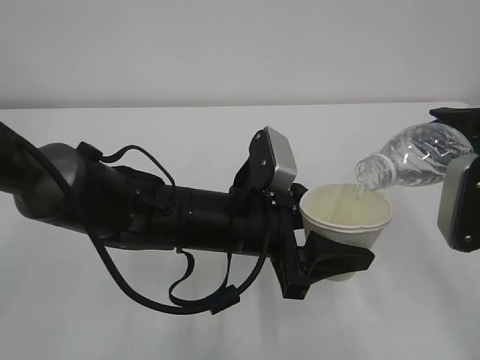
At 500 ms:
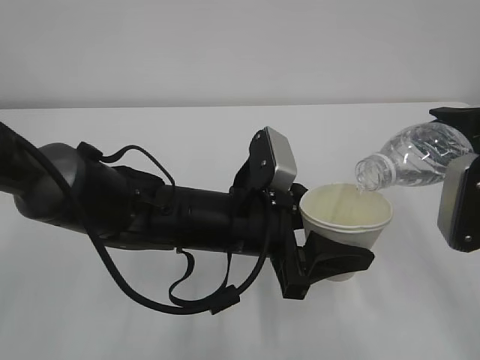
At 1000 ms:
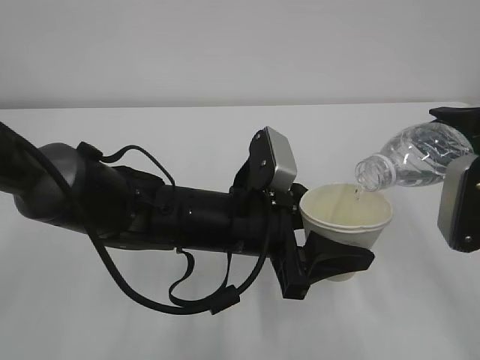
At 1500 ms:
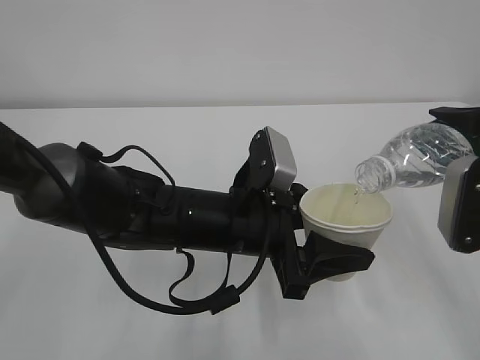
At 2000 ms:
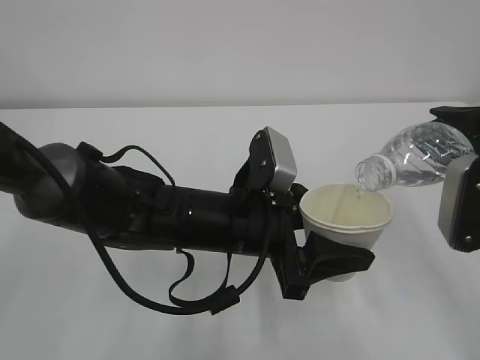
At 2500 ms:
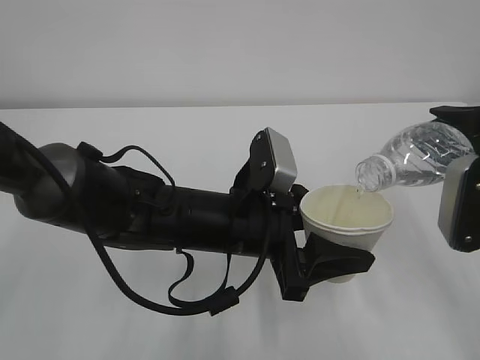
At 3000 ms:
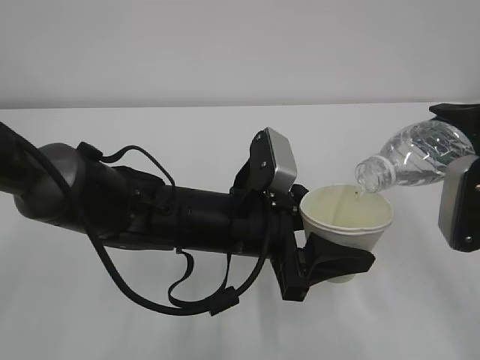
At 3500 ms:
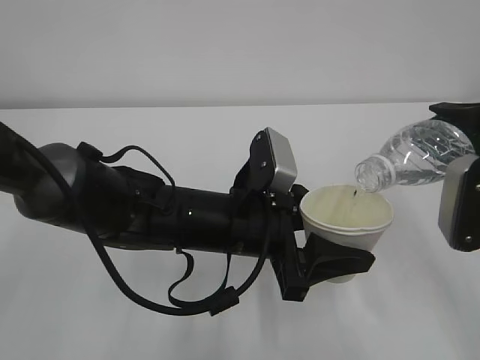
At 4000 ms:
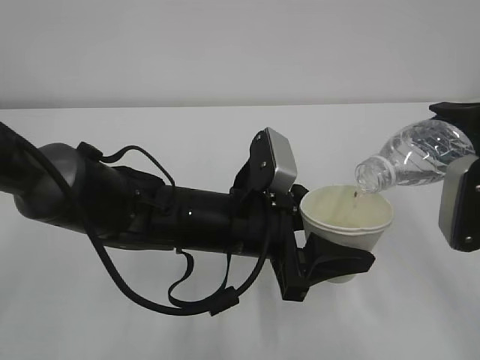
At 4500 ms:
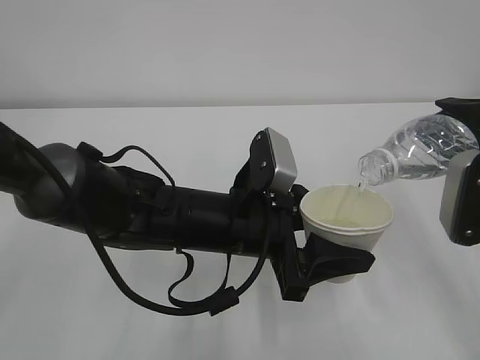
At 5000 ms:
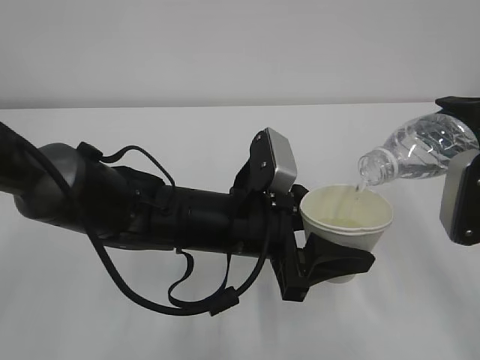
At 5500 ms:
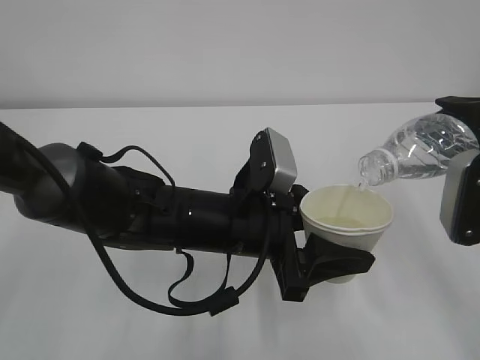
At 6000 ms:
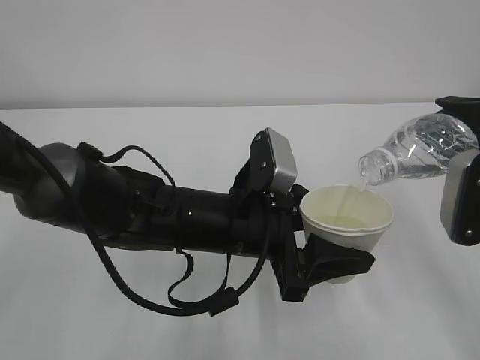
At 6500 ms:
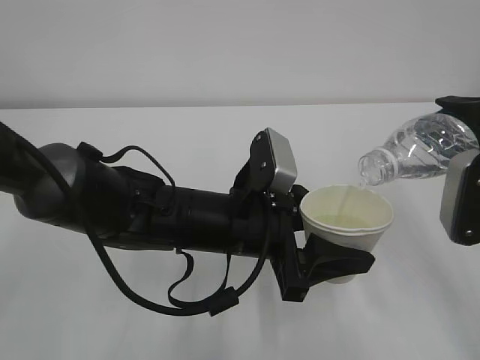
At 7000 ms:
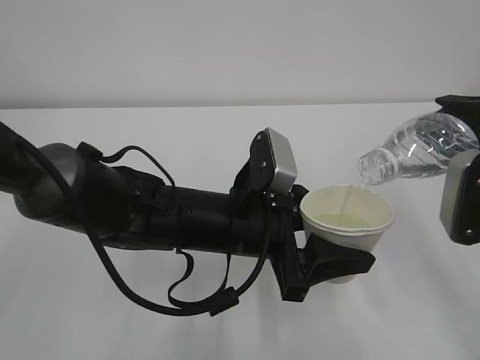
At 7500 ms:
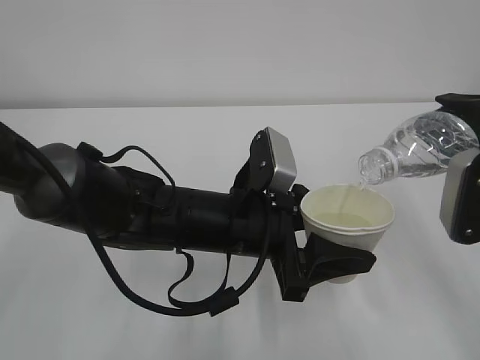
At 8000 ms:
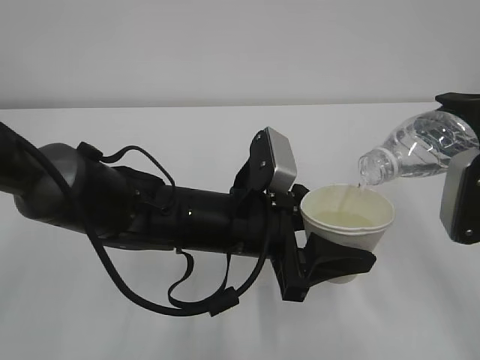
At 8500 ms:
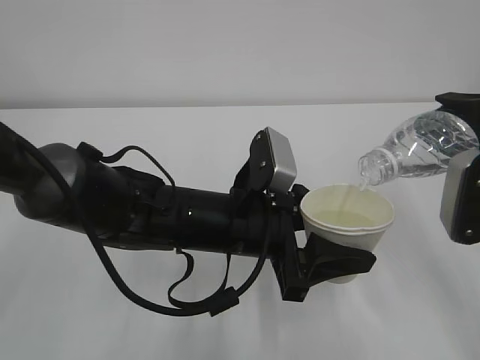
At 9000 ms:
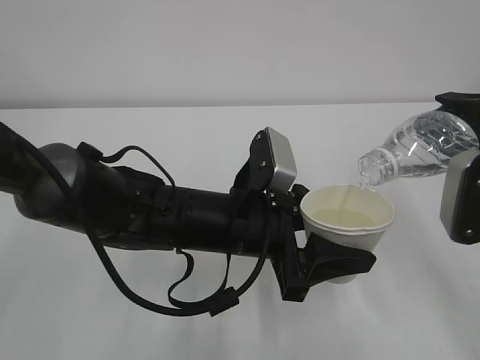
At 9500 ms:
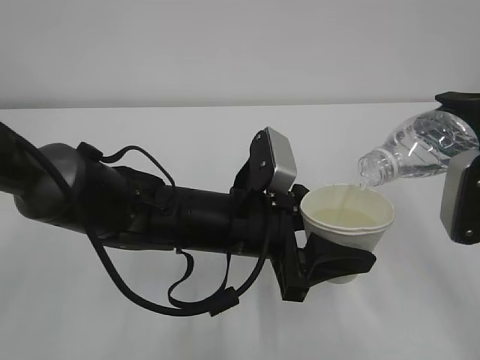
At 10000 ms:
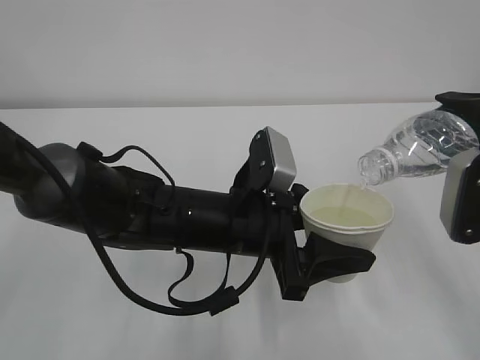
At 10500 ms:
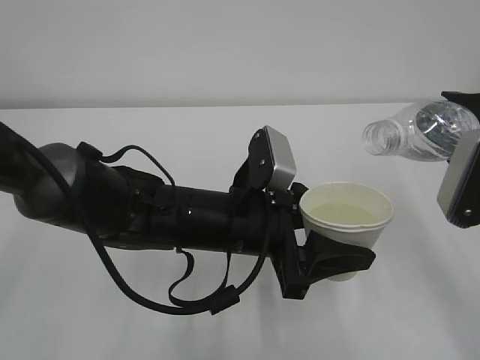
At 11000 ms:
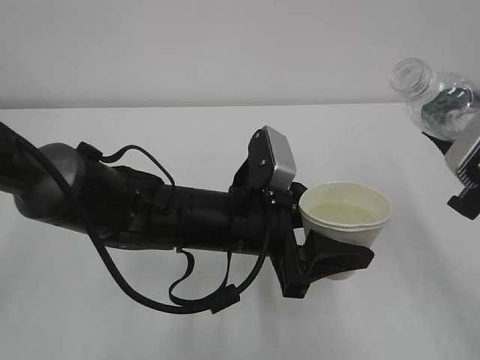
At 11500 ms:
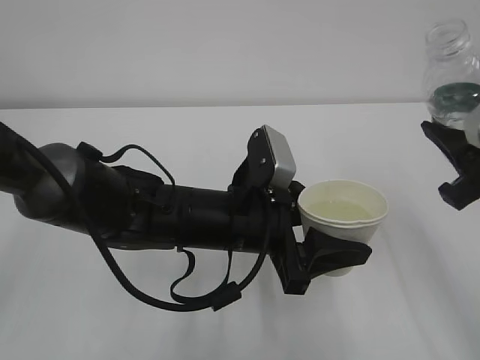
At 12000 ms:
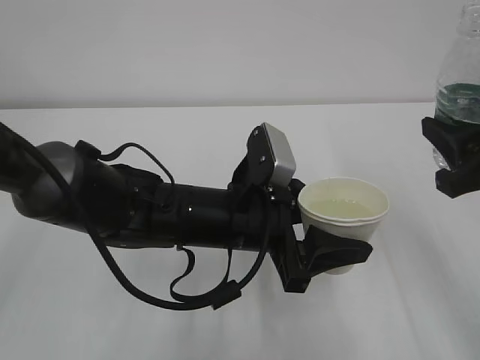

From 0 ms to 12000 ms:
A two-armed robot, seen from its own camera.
From 0 ms to 6000 ms: Neither gripper changes place.
From 6000 ms to 10000 ms: Both grippers stay put.

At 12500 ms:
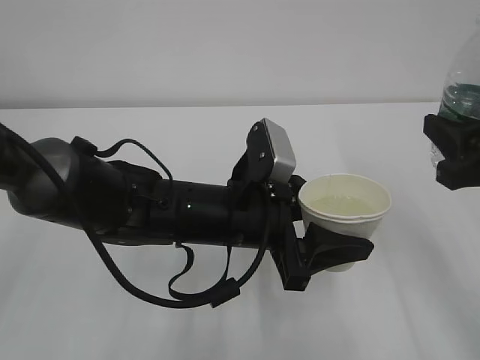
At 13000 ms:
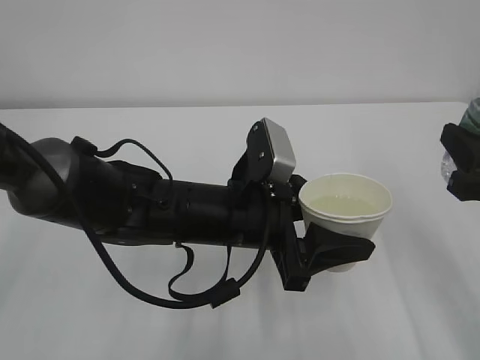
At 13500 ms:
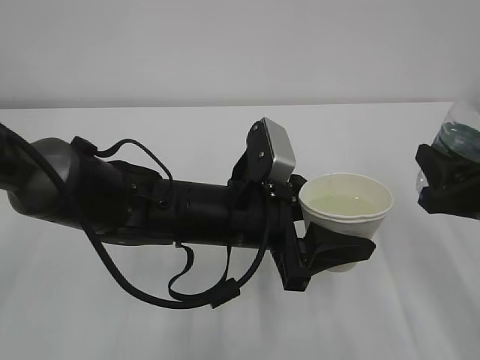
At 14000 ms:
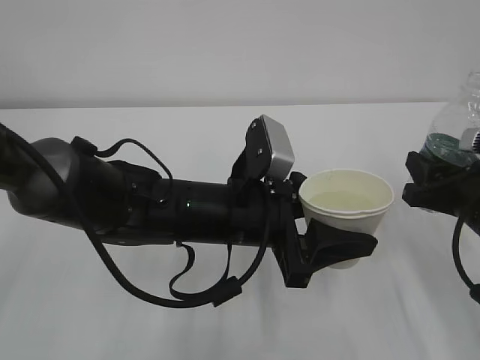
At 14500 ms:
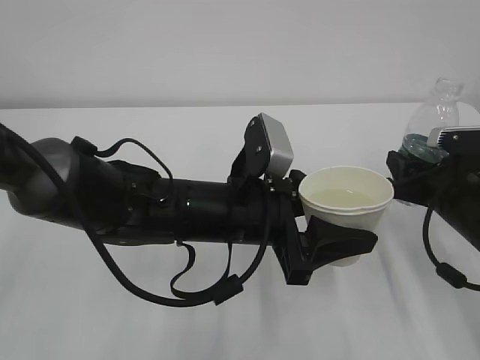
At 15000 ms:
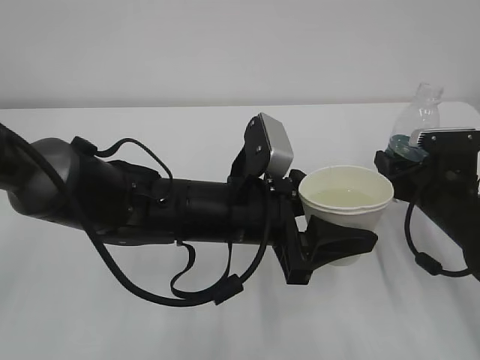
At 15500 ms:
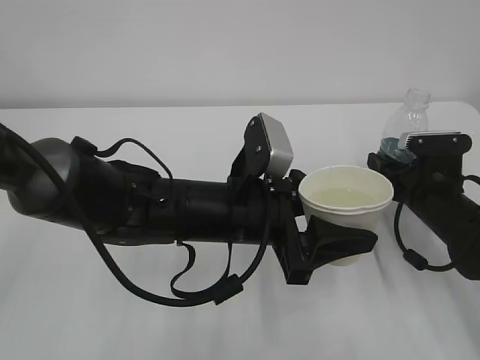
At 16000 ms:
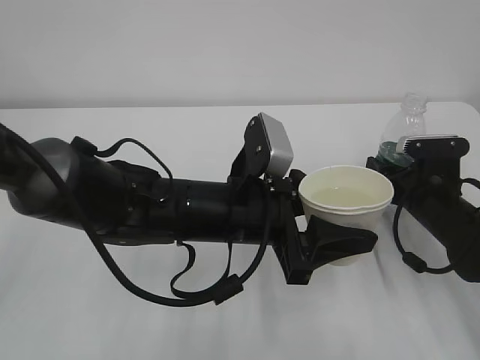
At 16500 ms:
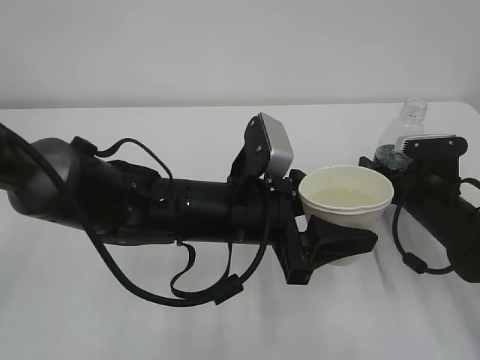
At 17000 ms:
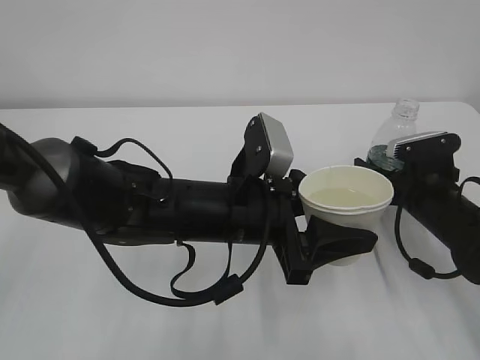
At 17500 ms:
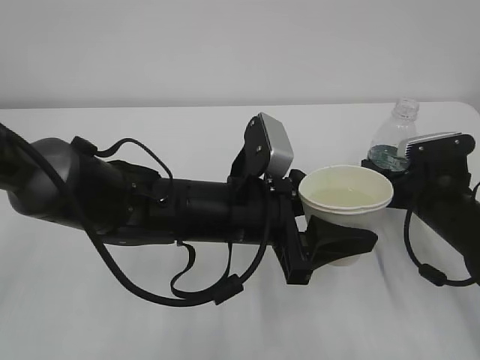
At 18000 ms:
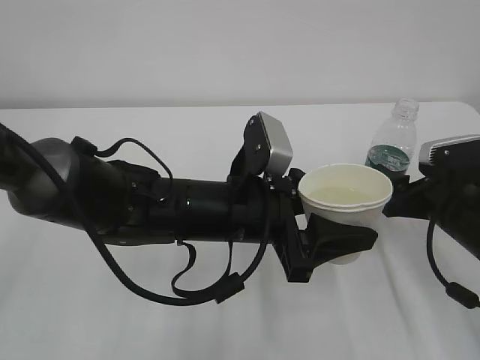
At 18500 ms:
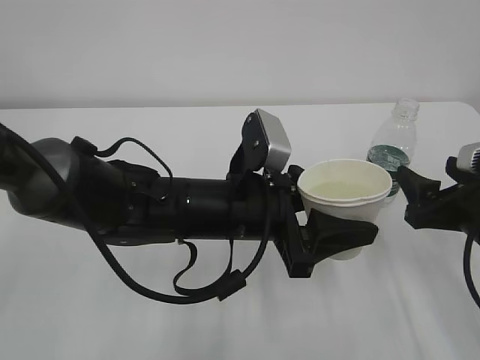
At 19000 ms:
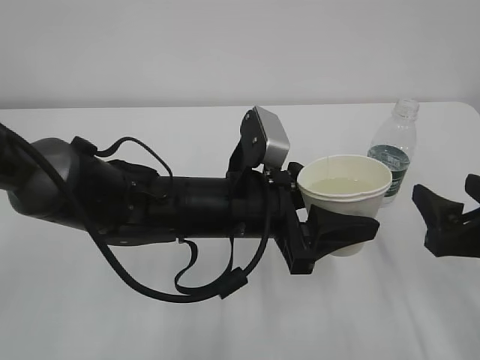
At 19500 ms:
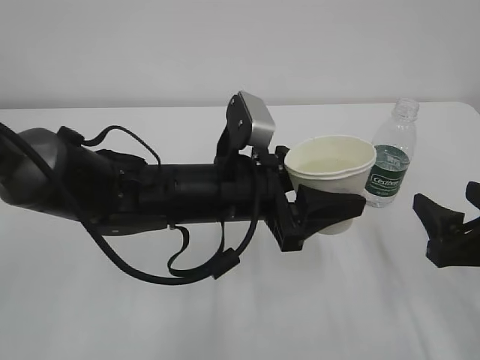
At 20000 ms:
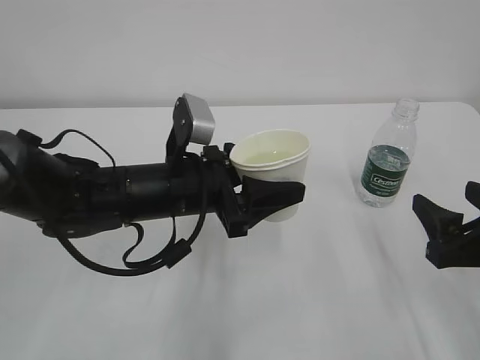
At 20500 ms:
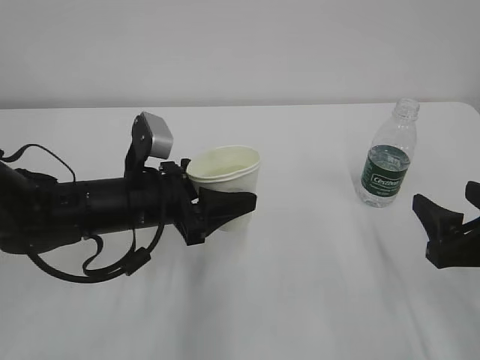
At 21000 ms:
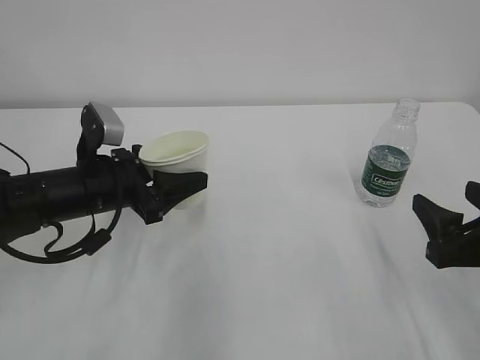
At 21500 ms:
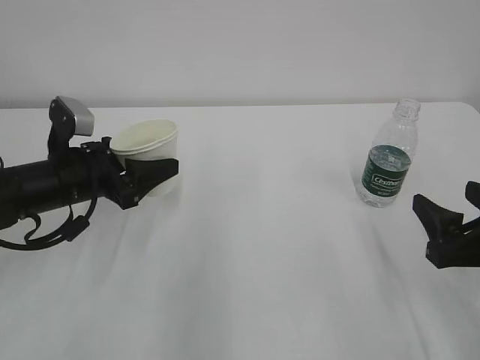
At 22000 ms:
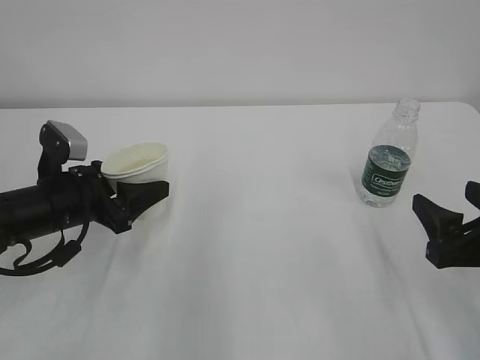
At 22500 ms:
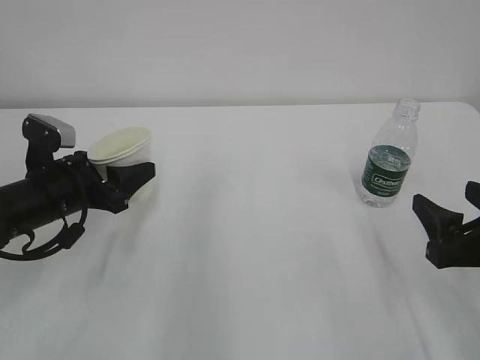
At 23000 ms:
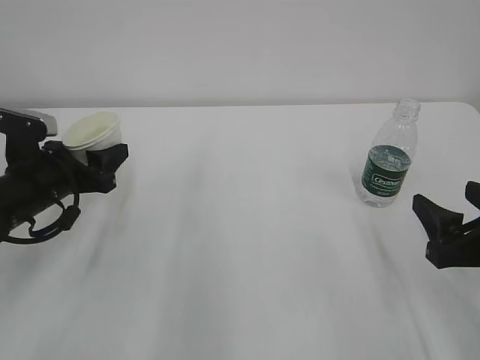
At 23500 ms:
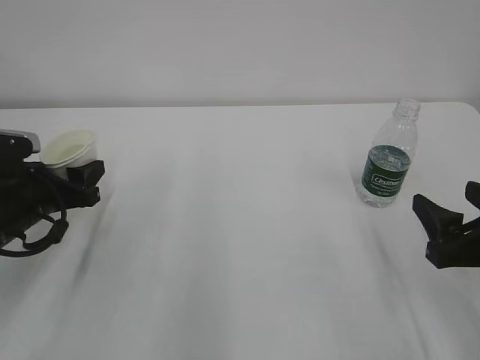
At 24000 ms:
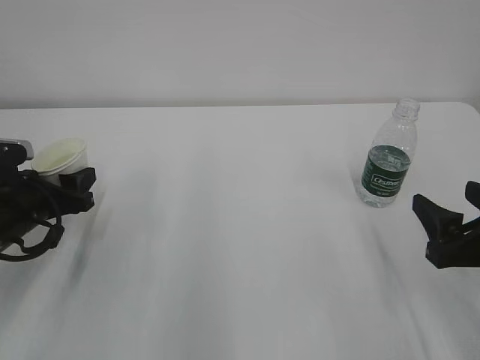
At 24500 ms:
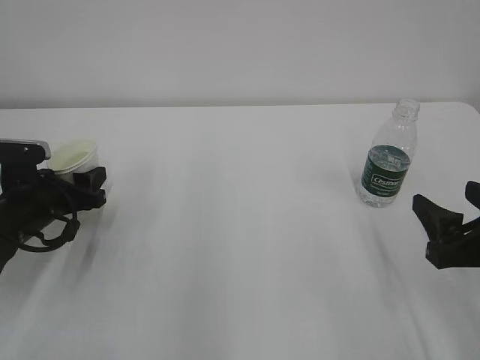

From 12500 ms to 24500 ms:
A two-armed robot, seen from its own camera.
From 12500 ms to 14500 ms: The right gripper heads downward and forward, covering some 15 cm.
From 14500 ms to 16500 ms: The right gripper shifts by approximately 5 cm, and opens.
From 16500 ms to 18500 ms: The right gripper goes about 15 cm backward and upward.
From 18500 ms to 20500 ms: The left gripper goes some 10 cm to the left.
From 20500 ms to 22500 ms: The left gripper moves to the left, roughly 10 cm.
From 22500 ms to 24500 ms: The left gripper ends up roughly 5 cm from where it was.

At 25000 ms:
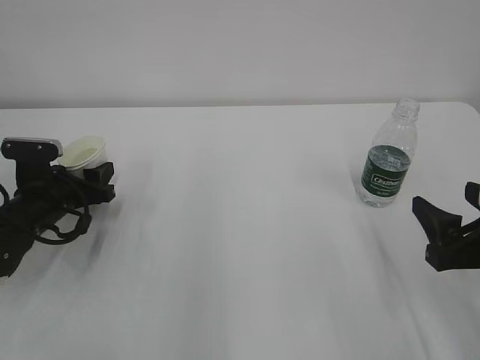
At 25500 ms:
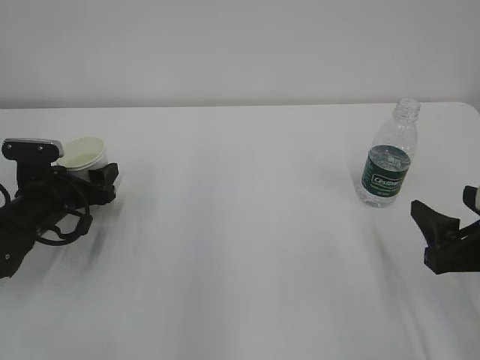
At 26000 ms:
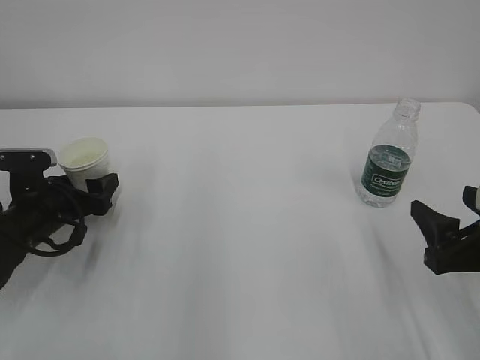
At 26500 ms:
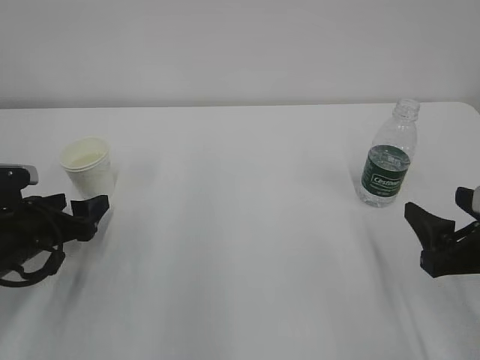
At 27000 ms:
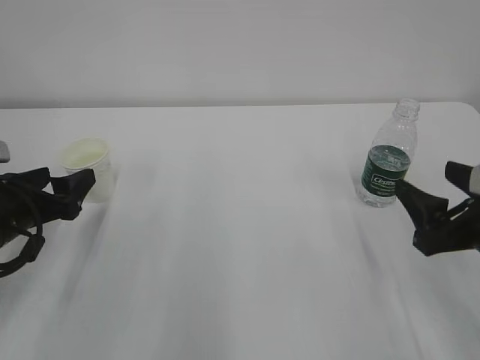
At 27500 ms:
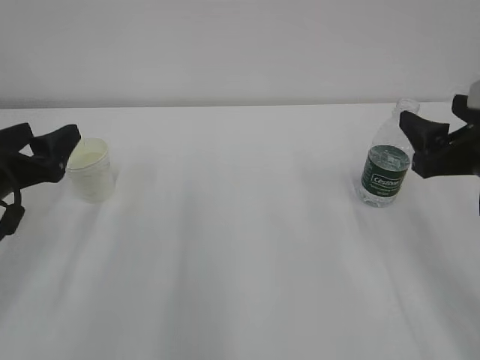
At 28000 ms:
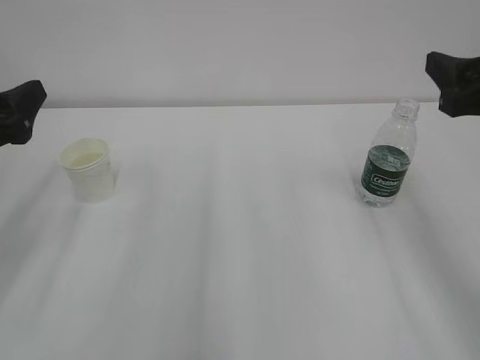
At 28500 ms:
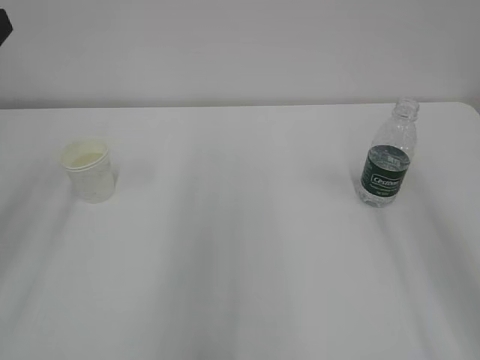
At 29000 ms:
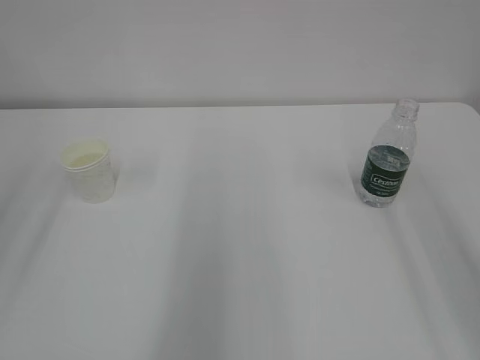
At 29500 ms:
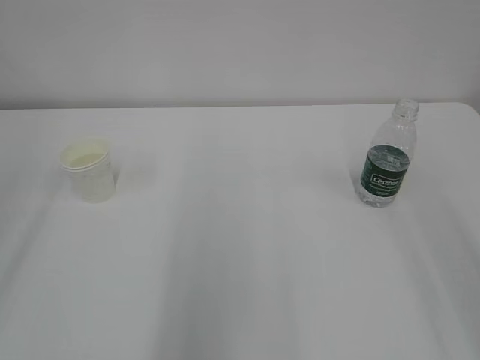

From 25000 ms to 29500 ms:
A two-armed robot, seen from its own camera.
From 25000 ms to 27000 ms: The left gripper goes approximately 10 cm backward and upward, and opens up.
From 27000 ms to 29500 ms: Both grippers travel together upward and backward, about 25 cm.
